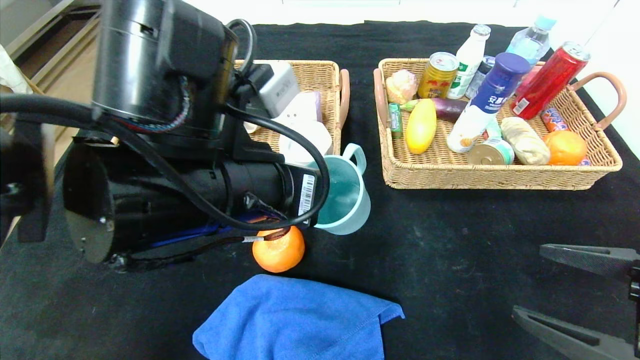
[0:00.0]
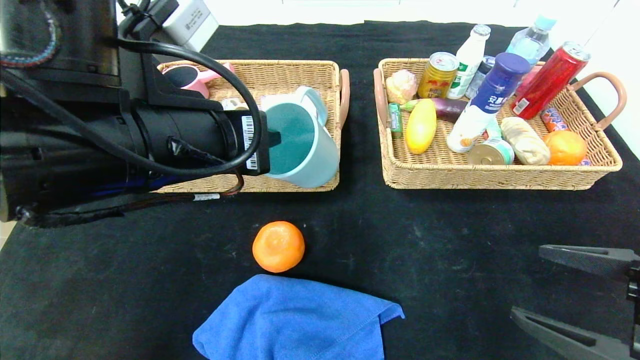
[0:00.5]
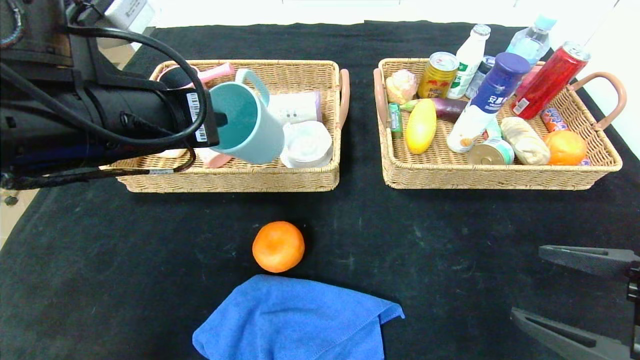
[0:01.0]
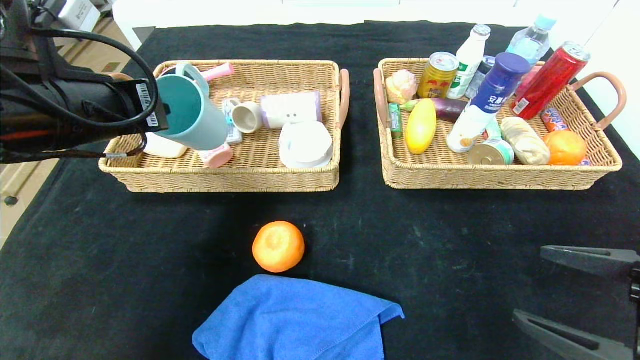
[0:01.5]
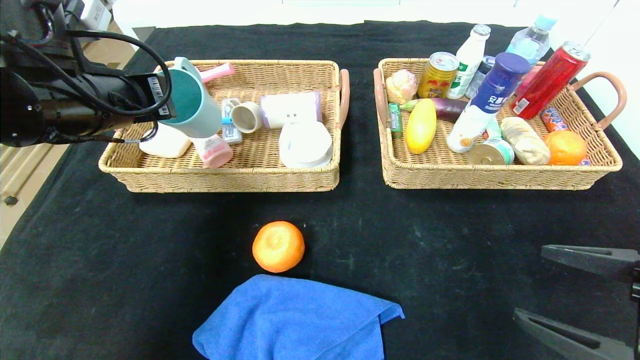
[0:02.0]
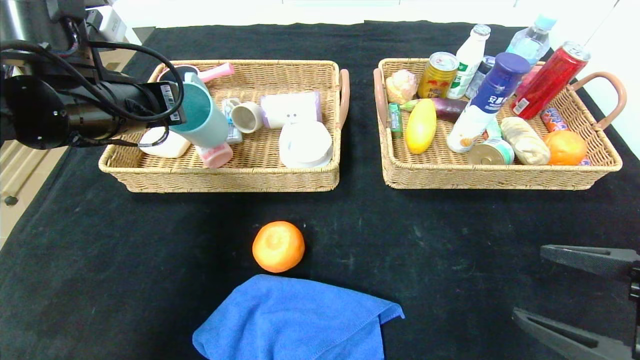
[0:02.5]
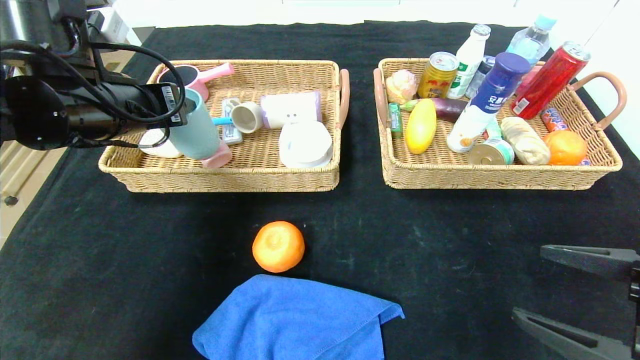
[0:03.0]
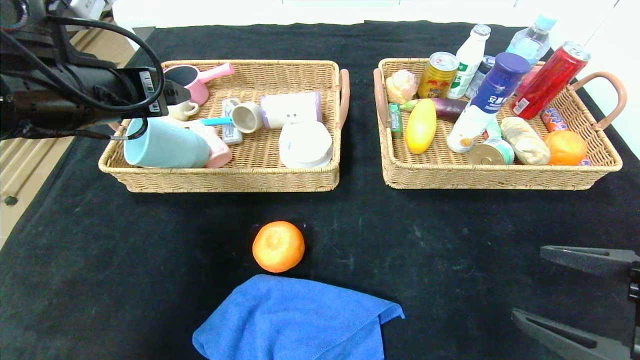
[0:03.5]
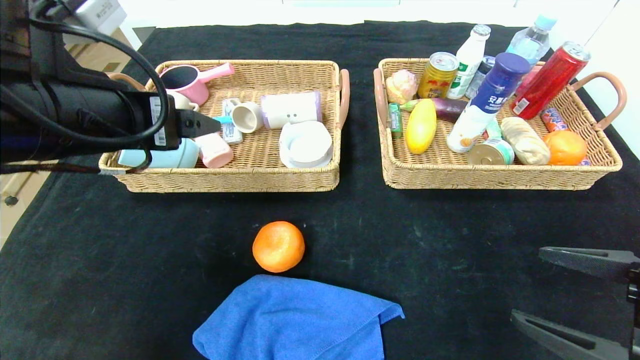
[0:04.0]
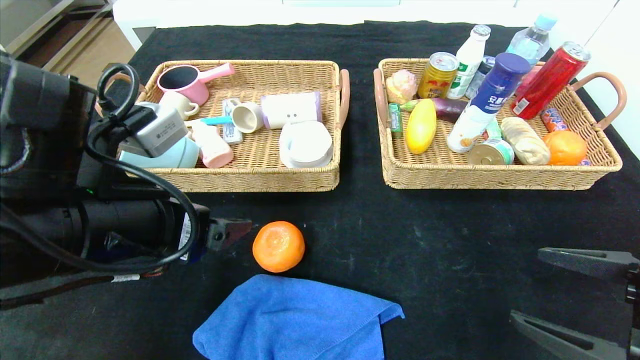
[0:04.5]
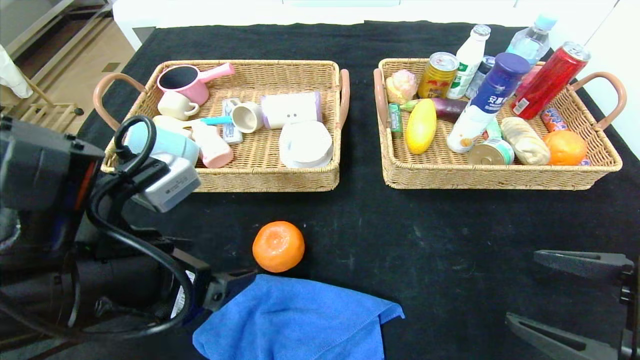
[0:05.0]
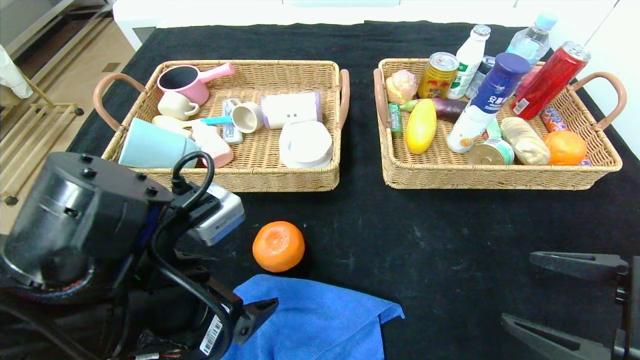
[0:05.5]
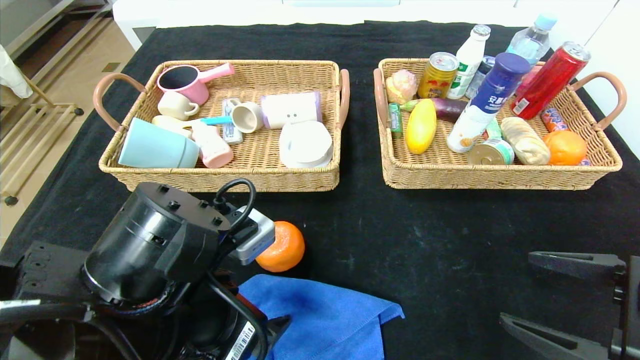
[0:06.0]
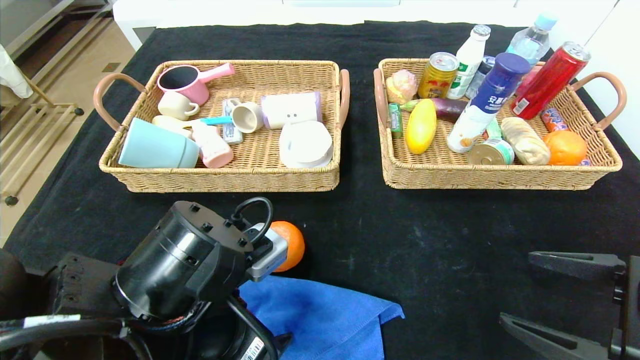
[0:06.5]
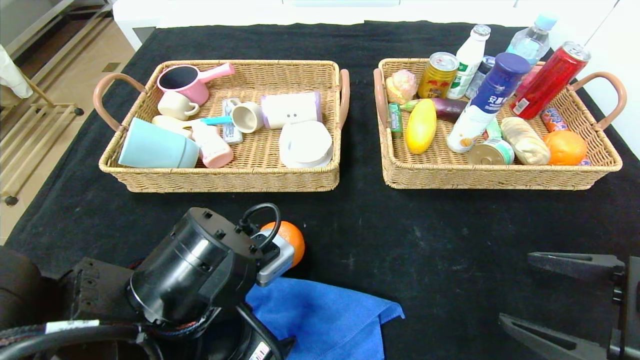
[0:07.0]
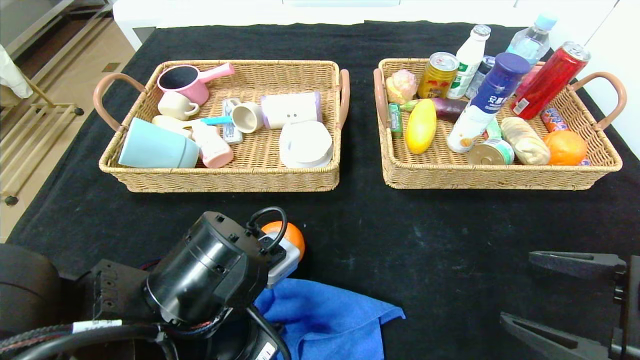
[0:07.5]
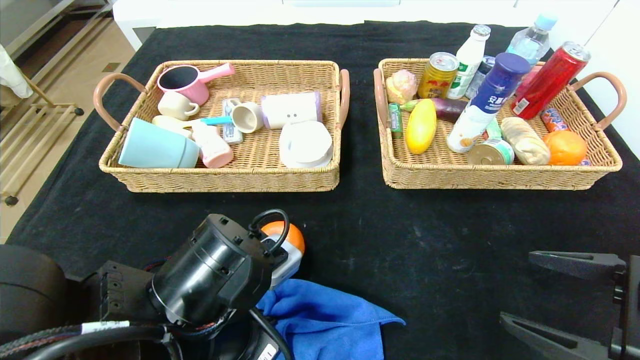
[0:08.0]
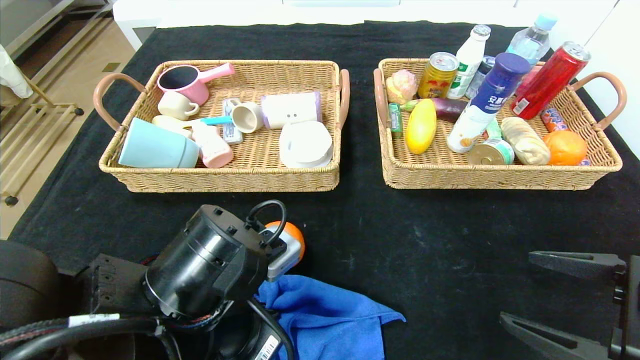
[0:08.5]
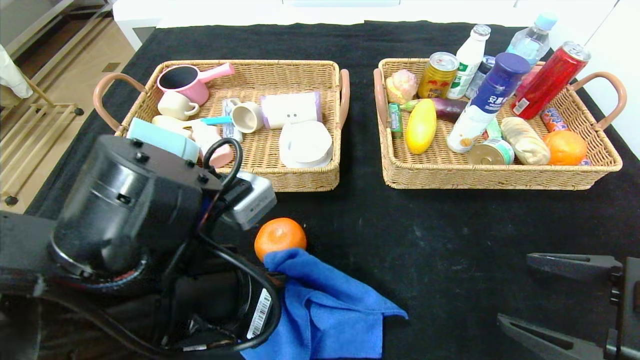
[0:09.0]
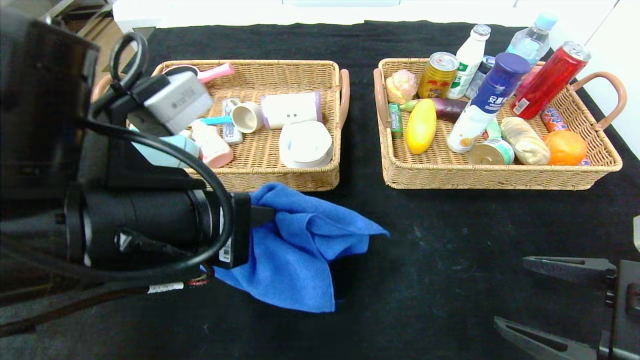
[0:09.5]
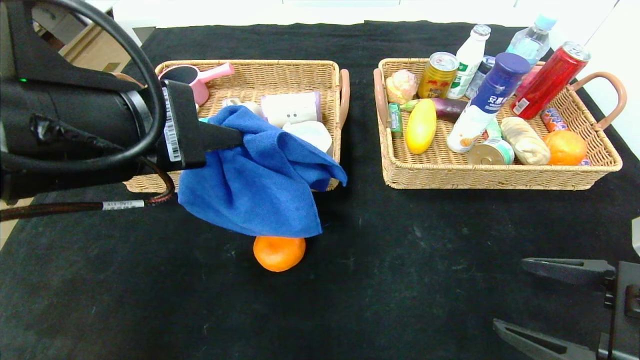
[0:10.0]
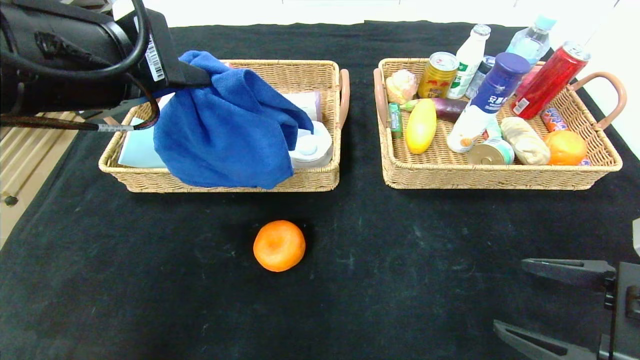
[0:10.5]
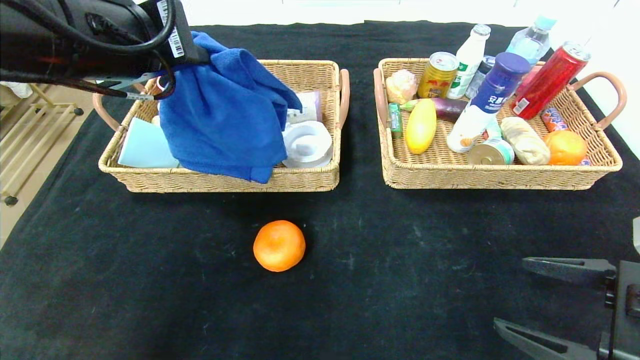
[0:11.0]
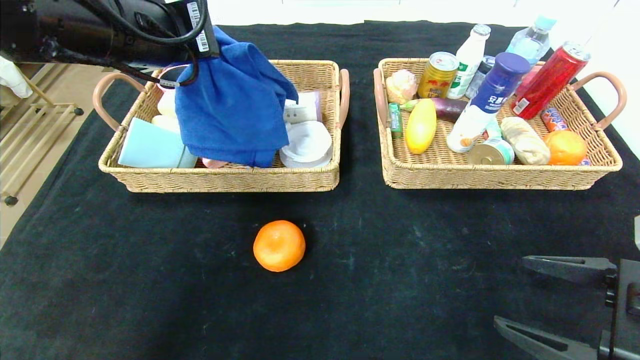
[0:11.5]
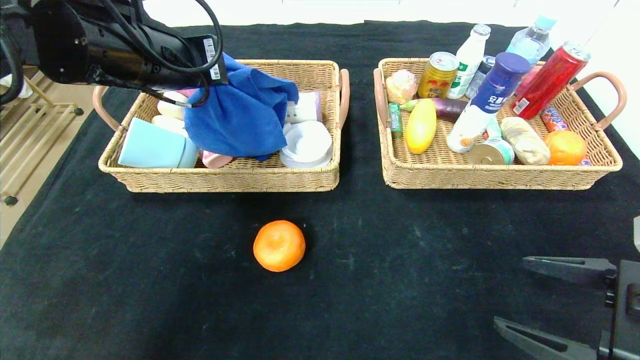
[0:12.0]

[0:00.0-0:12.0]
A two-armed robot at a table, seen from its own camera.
Step, 0:00.0 to 0:04.5: Pick up the blue cup and put it in the left basket.
0:00.0 to 0:02.0: The left gripper moves to the left and forward, about 15 cm.
0:02.0 to 0:04.0: The left gripper is displaced backward by approximately 5 cm, and opens its fingers.
0:04.0 to 0:06.0: The left gripper shifts some 15 cm downward, to the right and backward.
0:06.0 to 0:08.0: The left gripper closes its fingers.
0:08.0 to 0:10.0: The left gripper heads upward, covering approximately 15 cm.
0:10.0 to 0:12.0: The left gripper is displaced forward by roughly 15 cm.

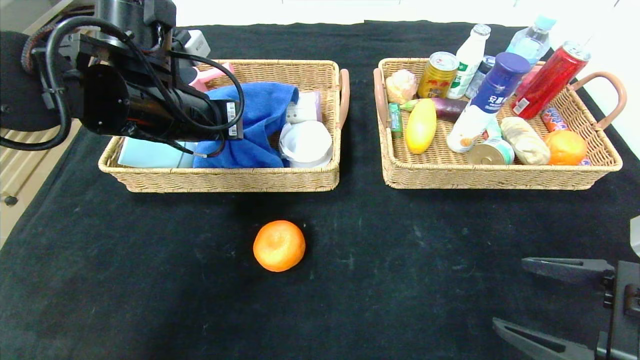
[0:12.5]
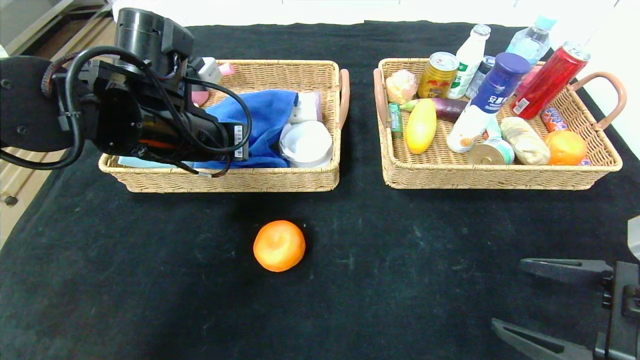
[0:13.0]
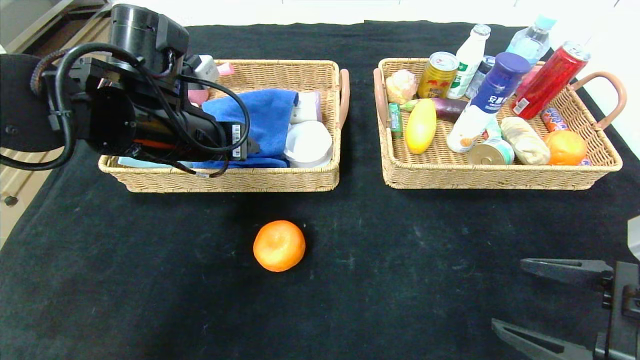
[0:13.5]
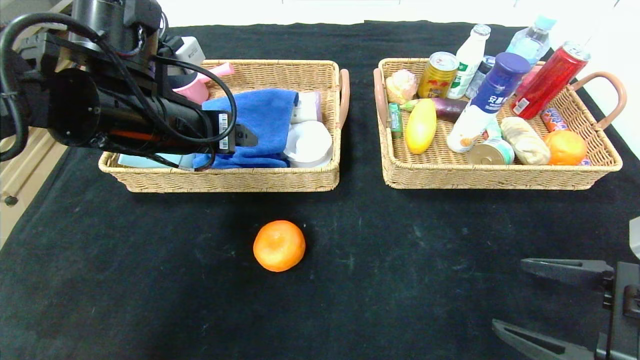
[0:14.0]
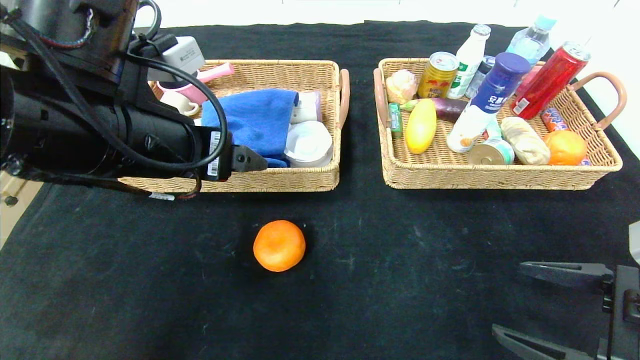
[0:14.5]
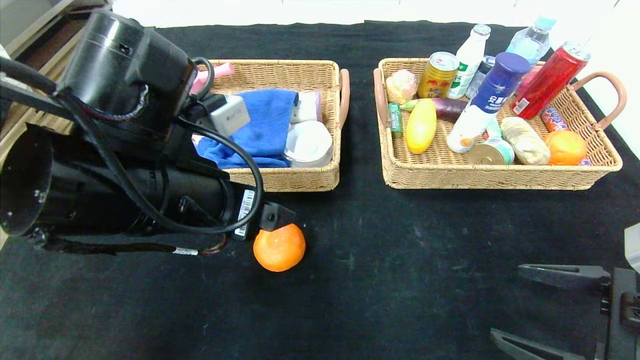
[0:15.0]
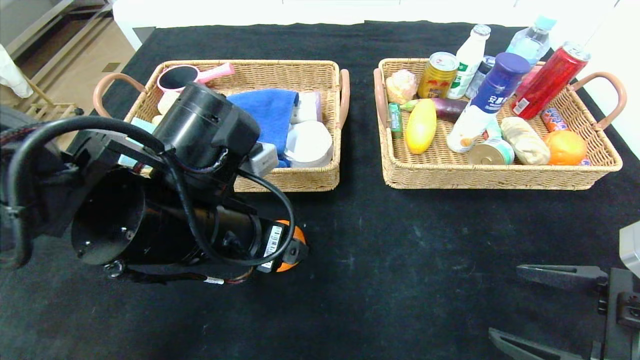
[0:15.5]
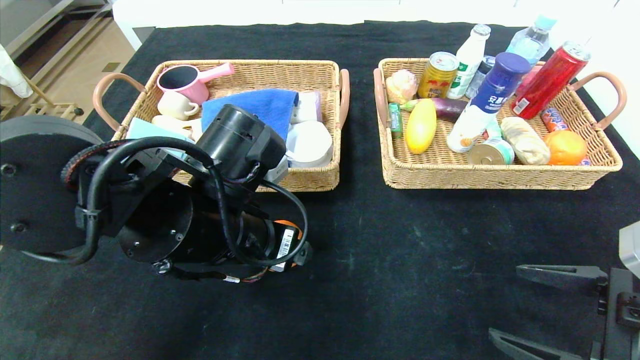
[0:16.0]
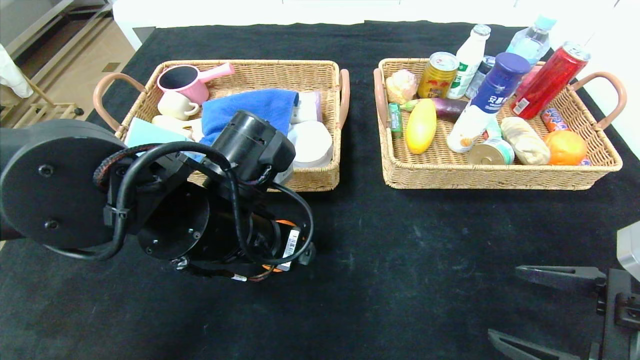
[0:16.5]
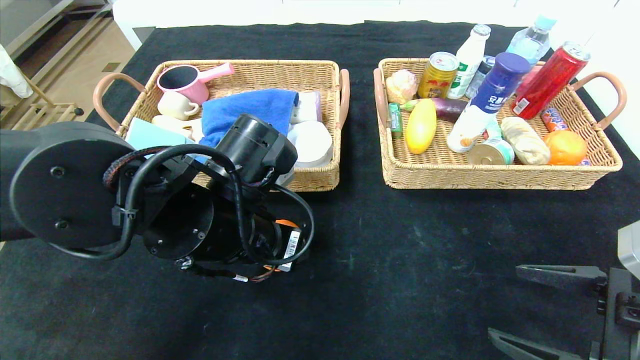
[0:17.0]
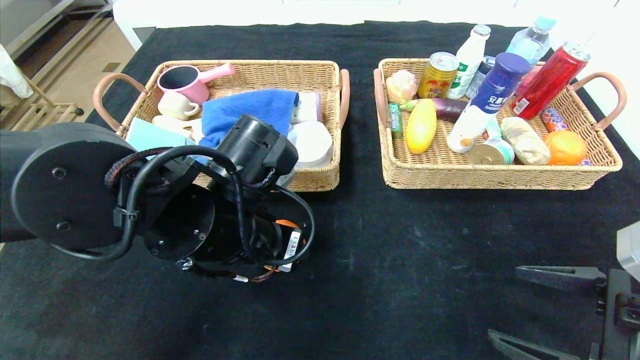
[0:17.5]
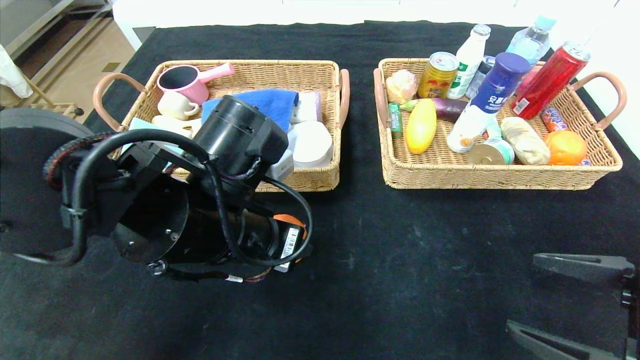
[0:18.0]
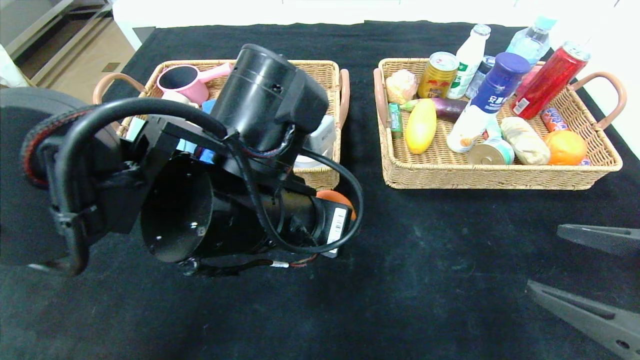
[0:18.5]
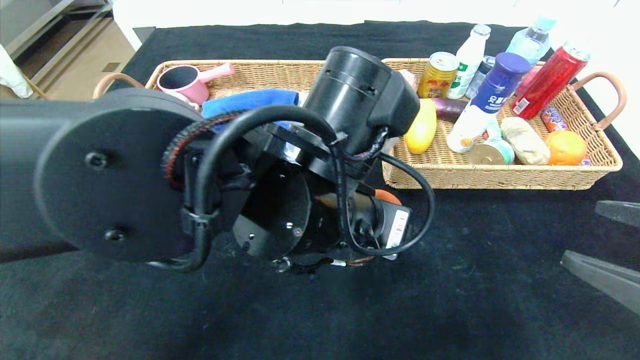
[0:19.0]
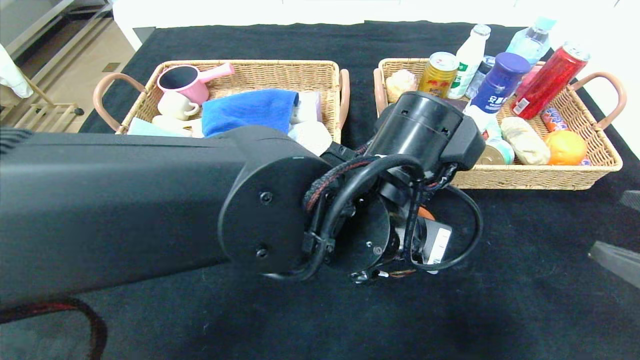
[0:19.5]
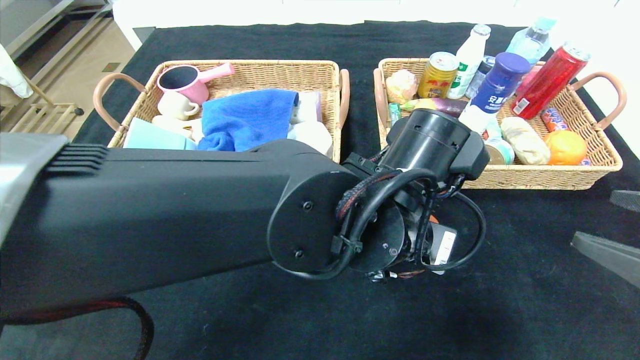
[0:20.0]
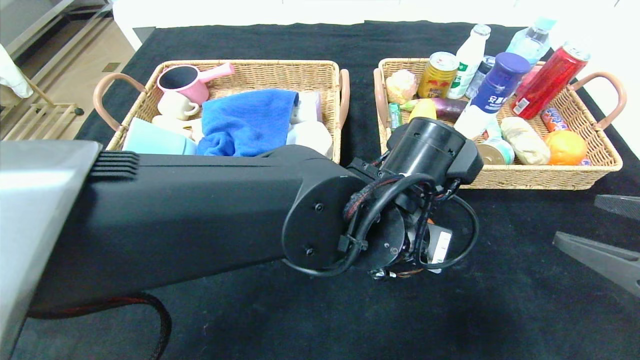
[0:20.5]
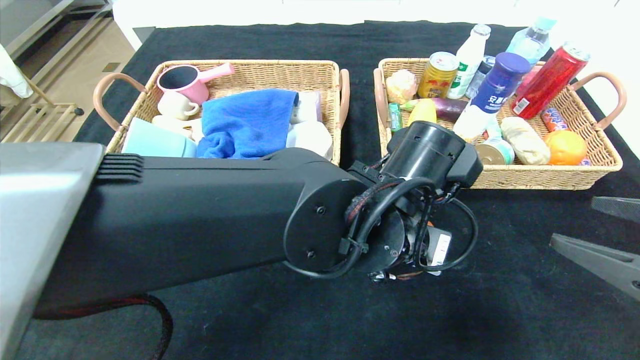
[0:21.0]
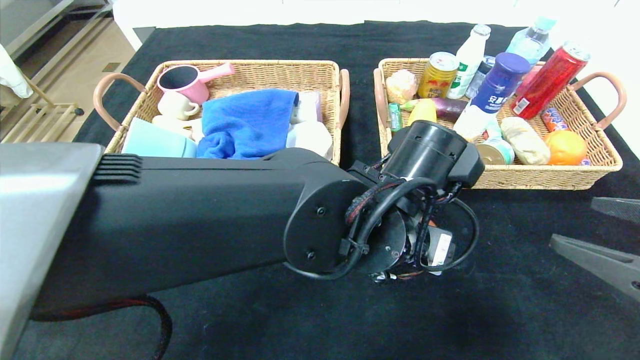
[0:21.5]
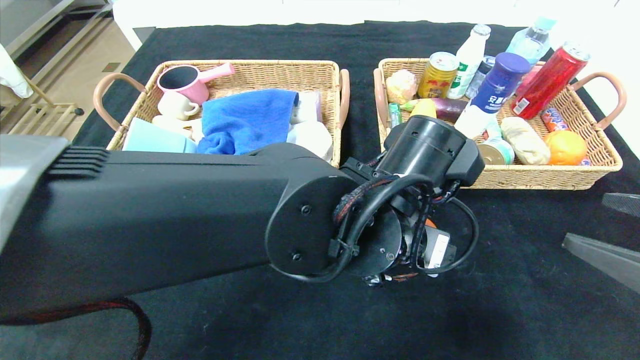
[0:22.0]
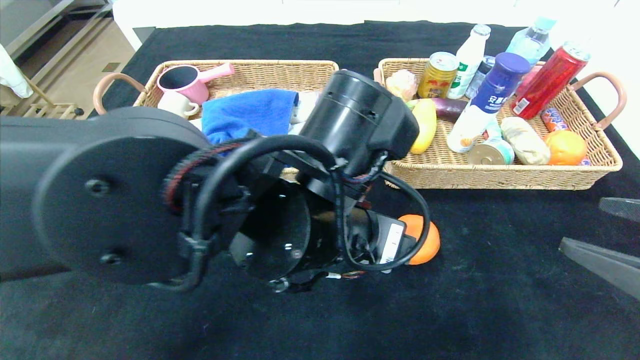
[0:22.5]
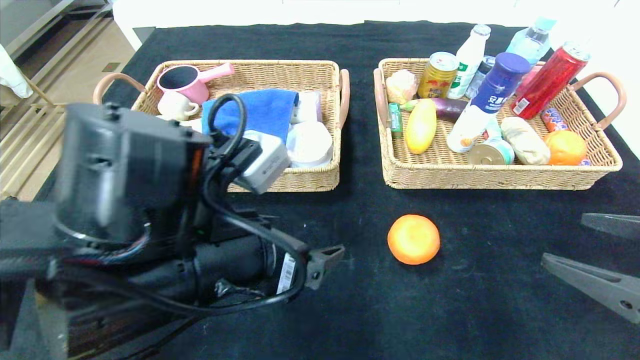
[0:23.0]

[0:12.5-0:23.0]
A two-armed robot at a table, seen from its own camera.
Step, 0:12.5 to 0:15.0: Pick up the blue towel and put it in the left basket.
Step, 0:15.5 to 0:22.5: Place the orange in the center of the table.
0:12.5 to 0:14.5: The left gripper is displaced backward by approximately 10 cm, and opens its fingers.
0:14.5 to 0:16.5: The left gripper shifts about 10 cm downward and to the right.
0:16.5 to 0:19.0: The left gripper heads to the right, covering about 10 cm, while the right gripper moves upward, approximately 5 cm.
0:19.0 to 0:21.0: The left gripper travels to the right by about 5 cm.
0:21.0 to 0:23.0: The left gripper travels to the left and backward by approximately 15 cm.
